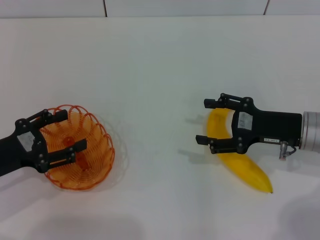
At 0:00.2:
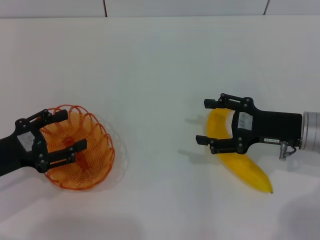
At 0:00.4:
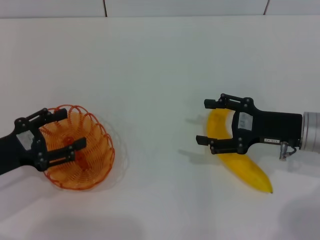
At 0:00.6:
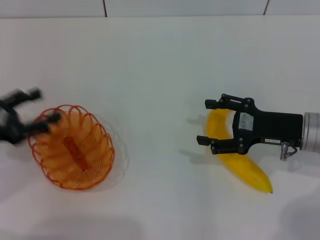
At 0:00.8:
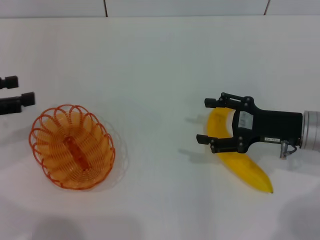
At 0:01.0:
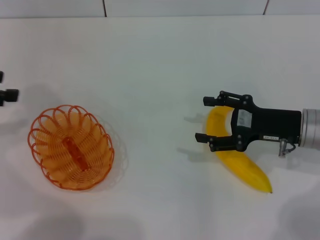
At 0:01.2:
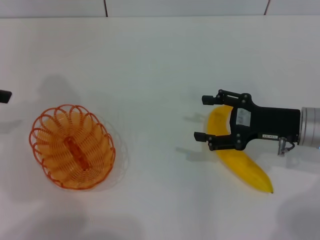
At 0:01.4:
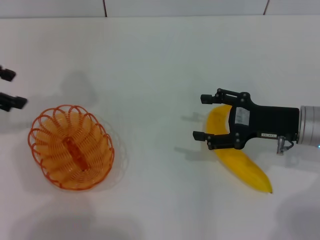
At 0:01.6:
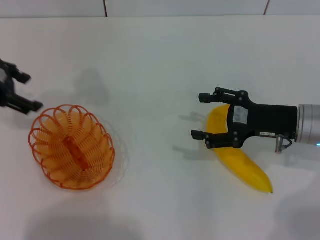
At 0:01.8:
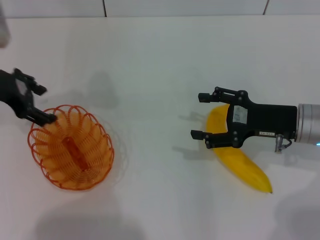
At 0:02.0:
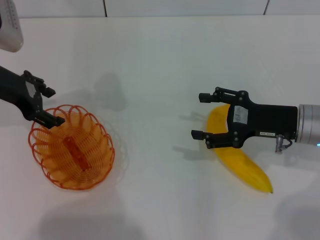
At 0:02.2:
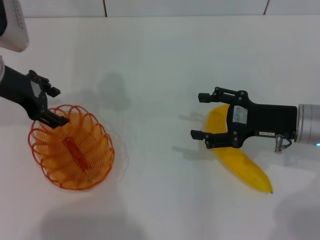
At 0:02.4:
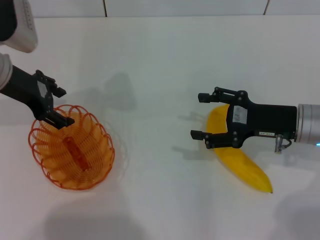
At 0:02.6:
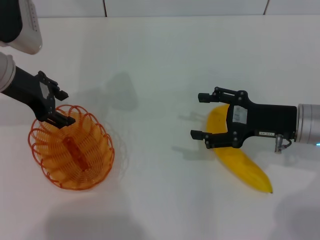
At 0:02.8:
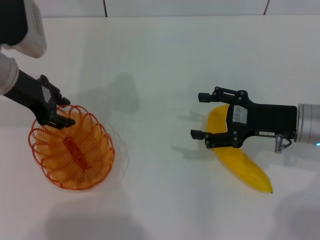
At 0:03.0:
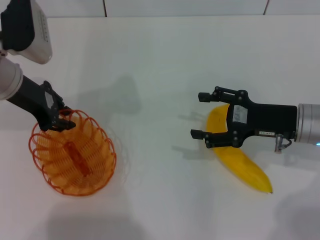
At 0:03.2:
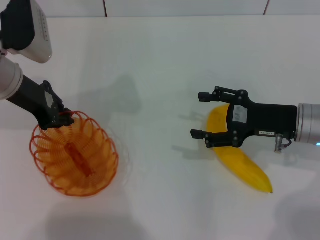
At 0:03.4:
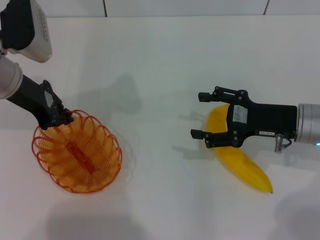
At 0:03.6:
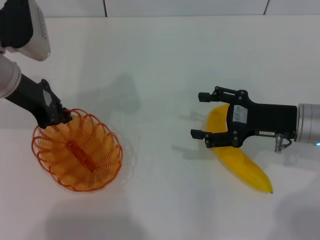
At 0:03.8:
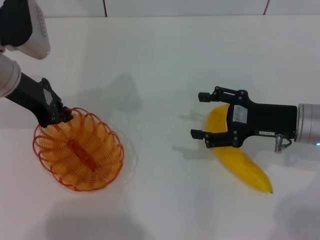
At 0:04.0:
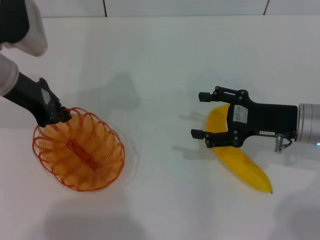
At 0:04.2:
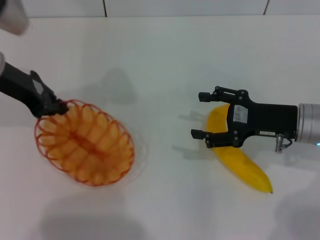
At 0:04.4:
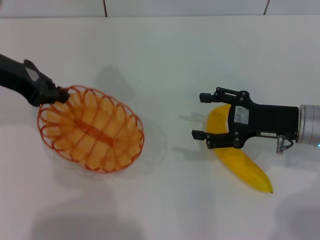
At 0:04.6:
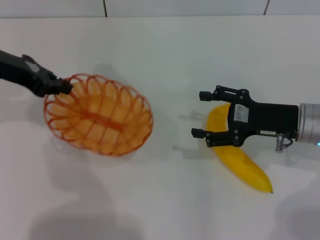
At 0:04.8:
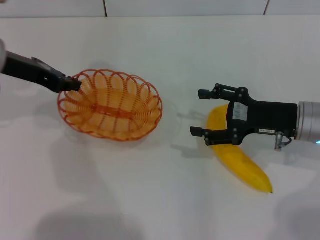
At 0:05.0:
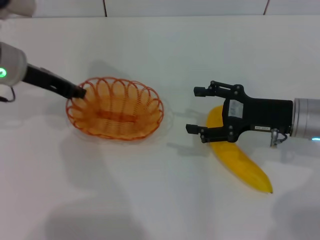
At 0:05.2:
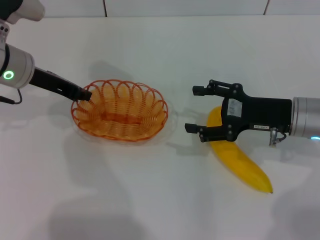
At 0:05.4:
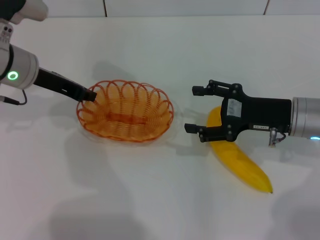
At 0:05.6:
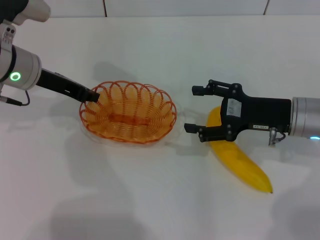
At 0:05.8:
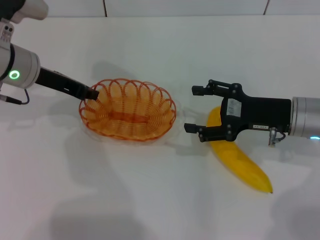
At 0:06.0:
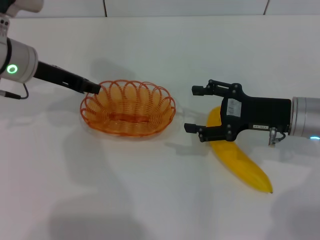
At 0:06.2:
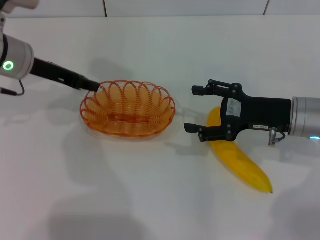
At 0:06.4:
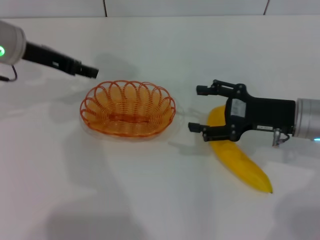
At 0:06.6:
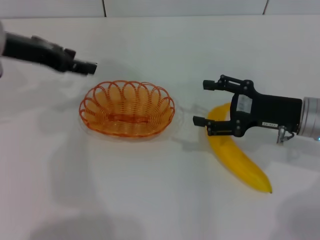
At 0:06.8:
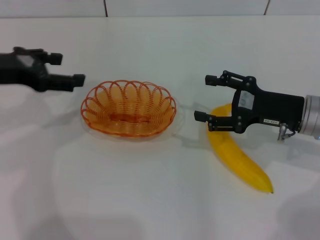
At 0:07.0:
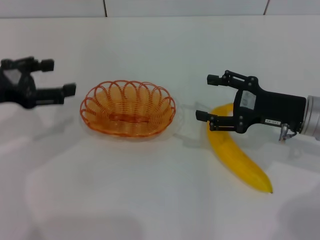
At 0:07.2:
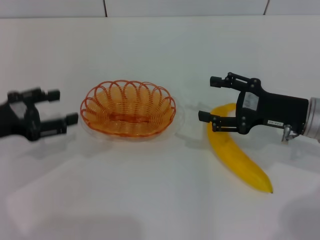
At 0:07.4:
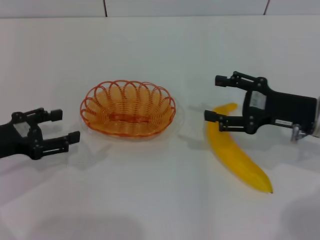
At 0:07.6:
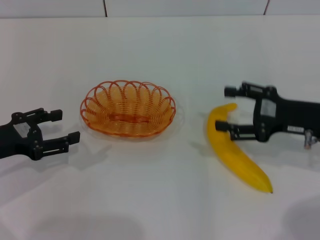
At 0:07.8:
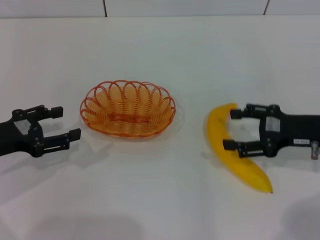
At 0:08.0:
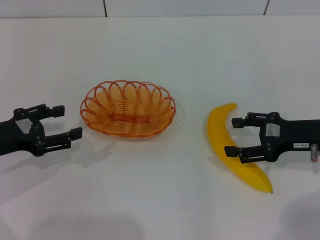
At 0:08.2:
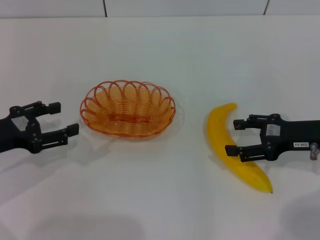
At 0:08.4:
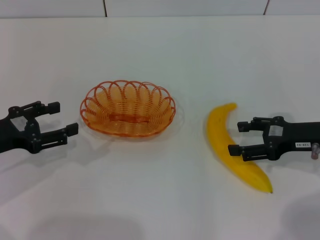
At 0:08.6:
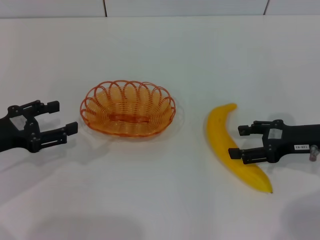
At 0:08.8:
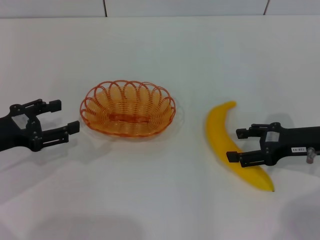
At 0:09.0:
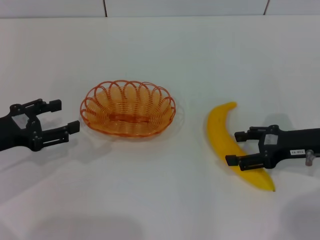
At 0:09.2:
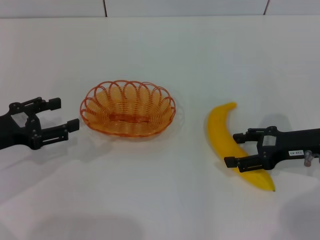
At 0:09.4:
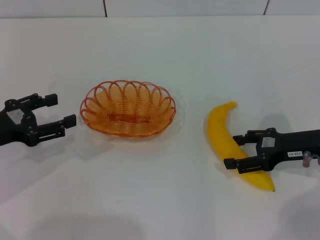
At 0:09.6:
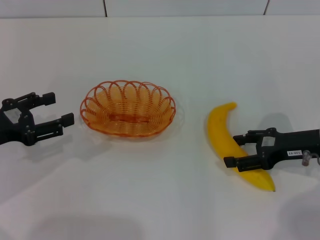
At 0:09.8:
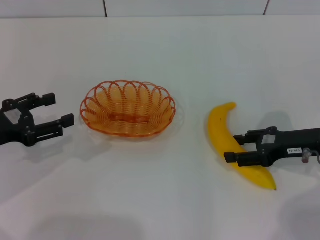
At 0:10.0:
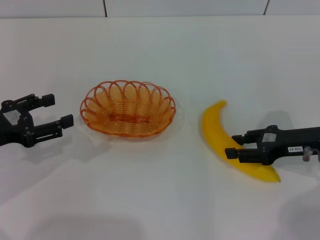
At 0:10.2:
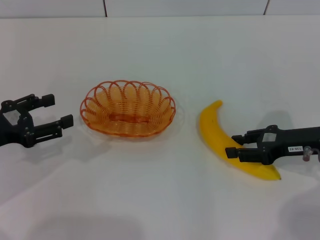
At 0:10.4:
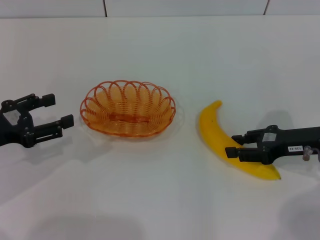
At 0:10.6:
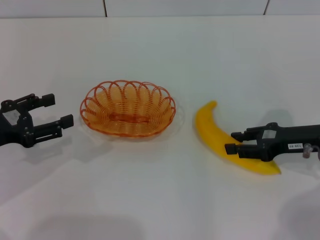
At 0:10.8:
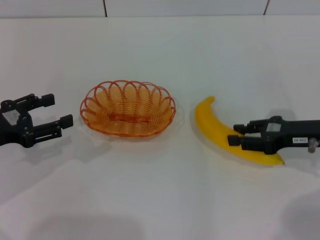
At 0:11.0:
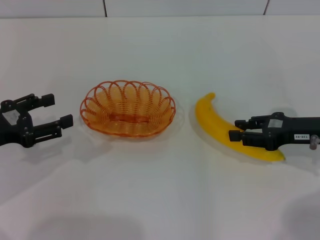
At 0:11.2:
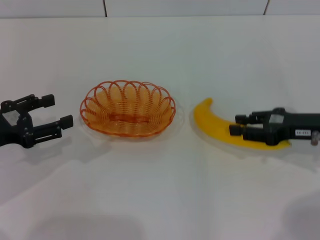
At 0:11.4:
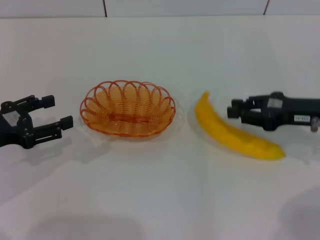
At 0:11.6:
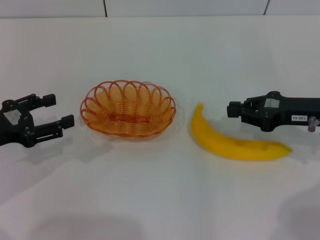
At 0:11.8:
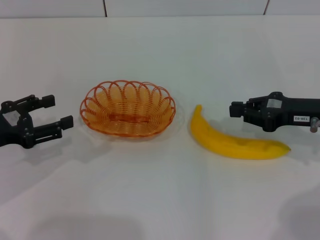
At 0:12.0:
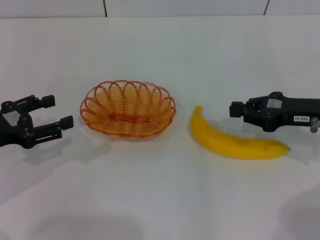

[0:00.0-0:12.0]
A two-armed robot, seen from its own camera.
Step, 0:00.0 to 0:04.4: Pick up the basket with the left gripper.
Step, 0:04.6 to 0:06.4: Place the basket in the center of view with the left gripper.
0:00.0 to 0:01.6: The left gripper goes approximately 20 cm forward and upward.
0:01.6 to 0:03.0: The left gripper heads to the right, covering about 5 cm, and closes.
0:03.0 to 0:04.4: The left gripper shifts by approximately 5 cm, and closes its fingers.
0:04.4 to 0:06.0: The left gripper moves about 5 cm.
0:06.0 to 0:07.6: The left gripper heads backward, to the left and downward, covering roughly 15 cm, and opens.
0:09.0 to 0:10.4: The right gripper closes up.
0:10.4 to 0:12.0: The right gripper closes its fingers.

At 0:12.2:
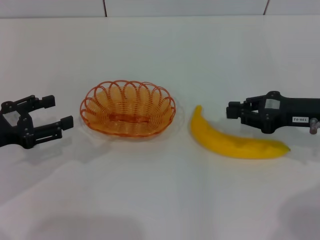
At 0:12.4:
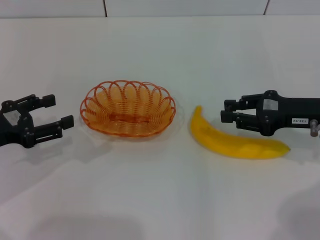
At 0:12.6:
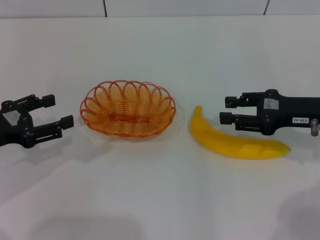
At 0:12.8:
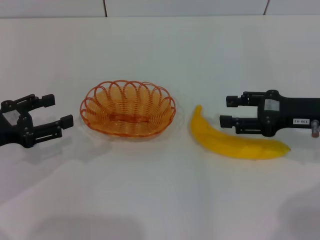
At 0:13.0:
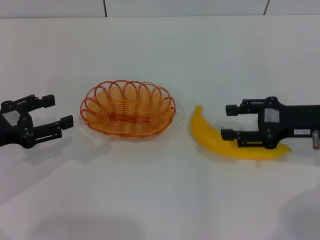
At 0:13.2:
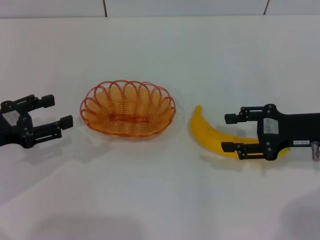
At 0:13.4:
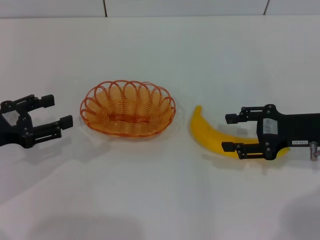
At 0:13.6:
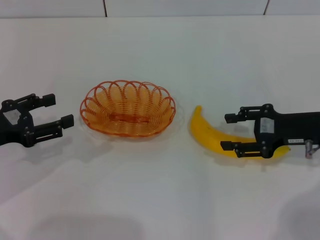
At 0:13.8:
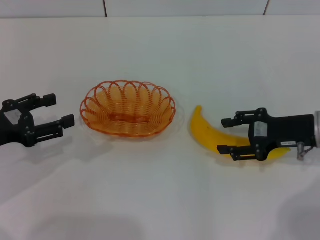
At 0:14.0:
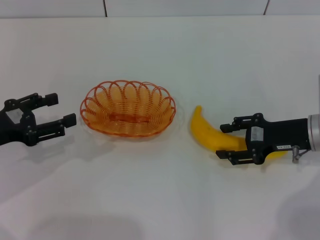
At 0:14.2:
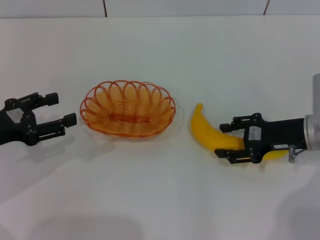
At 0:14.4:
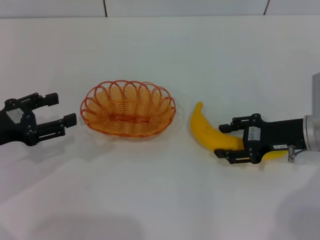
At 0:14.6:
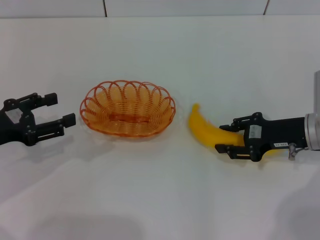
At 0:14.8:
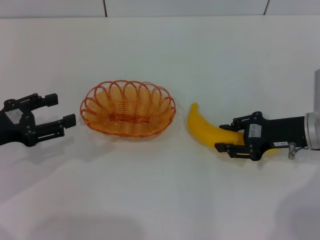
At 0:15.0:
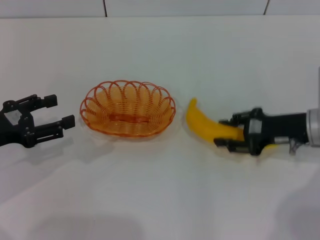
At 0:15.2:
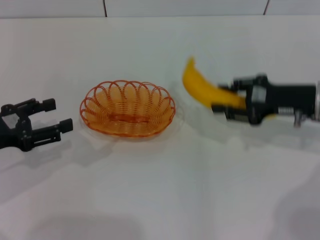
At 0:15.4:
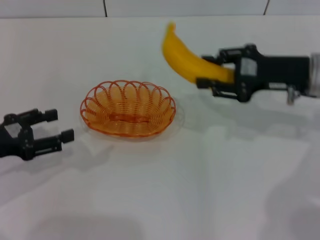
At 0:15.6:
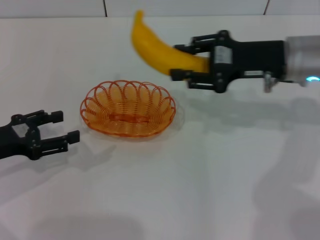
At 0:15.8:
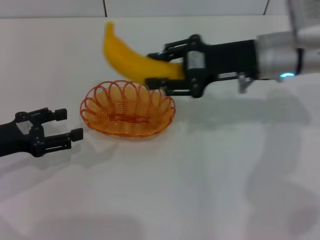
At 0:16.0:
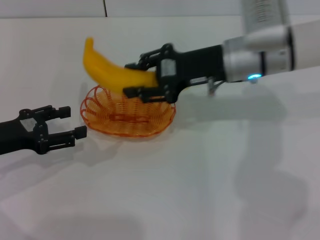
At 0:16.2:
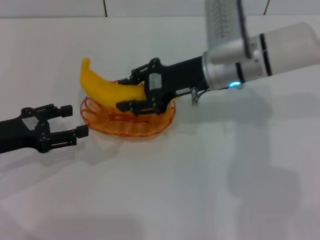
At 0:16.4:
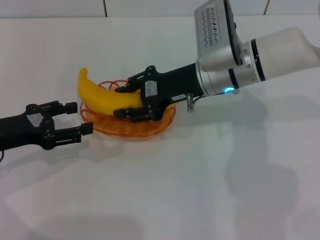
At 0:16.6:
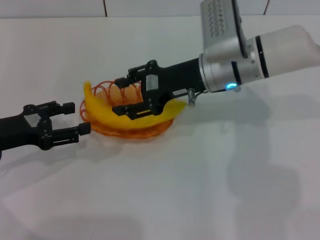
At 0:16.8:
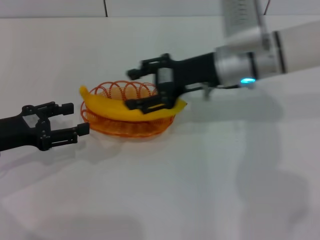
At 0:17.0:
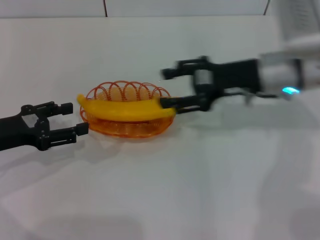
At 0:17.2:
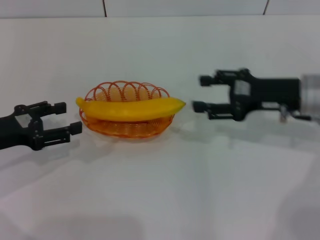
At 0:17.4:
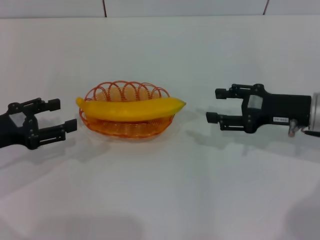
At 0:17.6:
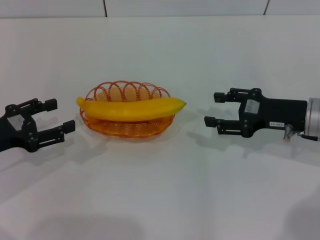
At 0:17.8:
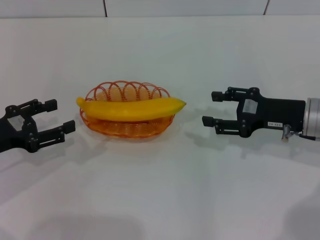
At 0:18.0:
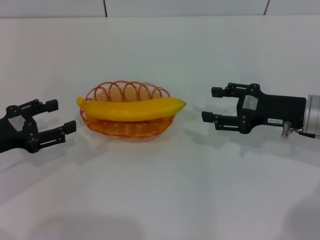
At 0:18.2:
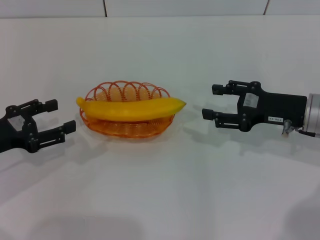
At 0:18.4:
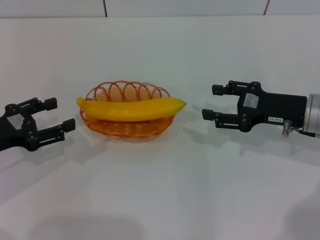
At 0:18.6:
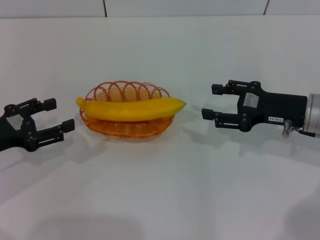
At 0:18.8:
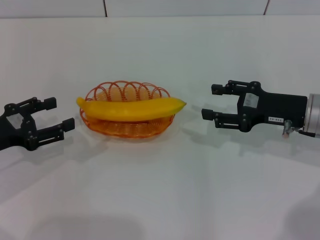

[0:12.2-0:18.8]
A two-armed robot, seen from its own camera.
Step, 0:12.2 to 0:15.0: Pick up the banana with the right gripper.
Step, 0:15.4 to 0:17.0: Place the banana into the basket with the right gripper.
0:12.2 to 0:13.8: The right gripper opens up.
0:13.8 to 0:15.4: The right gripper is displaced upward by about 5 cm.
0:15.4 to 0:17.2: The right gripper goes to the left and returns, approximately 15 cm each way.
0:17.2 to 0:18.8: There are only small adjustments of the grippers.

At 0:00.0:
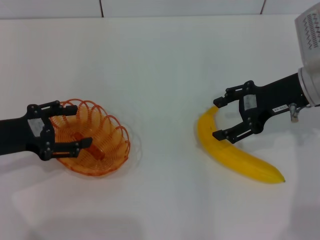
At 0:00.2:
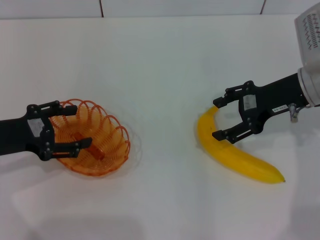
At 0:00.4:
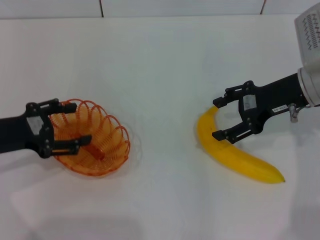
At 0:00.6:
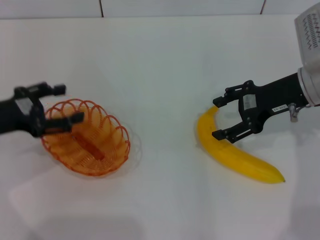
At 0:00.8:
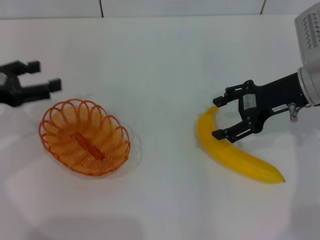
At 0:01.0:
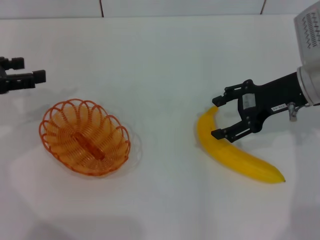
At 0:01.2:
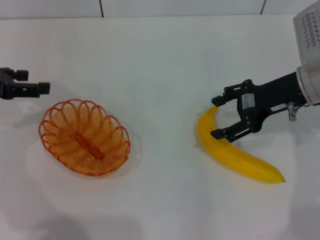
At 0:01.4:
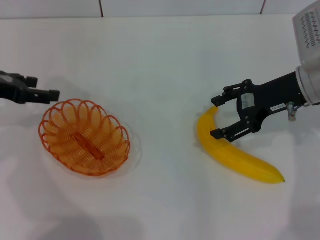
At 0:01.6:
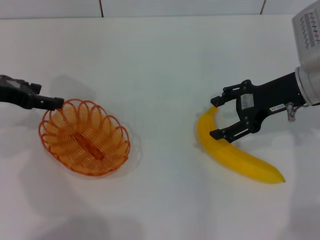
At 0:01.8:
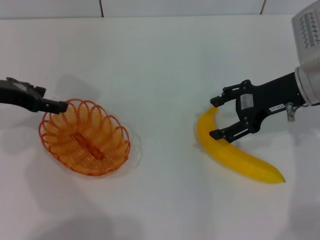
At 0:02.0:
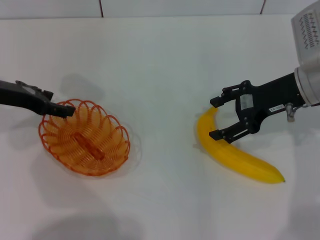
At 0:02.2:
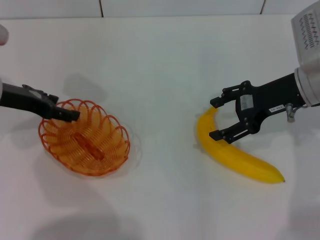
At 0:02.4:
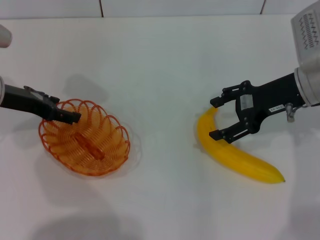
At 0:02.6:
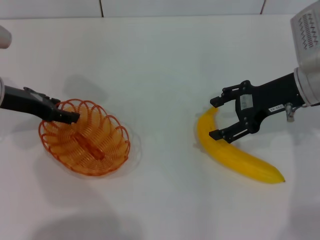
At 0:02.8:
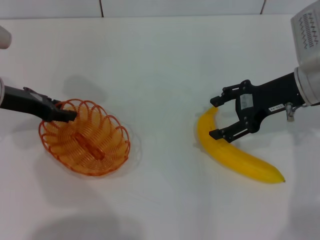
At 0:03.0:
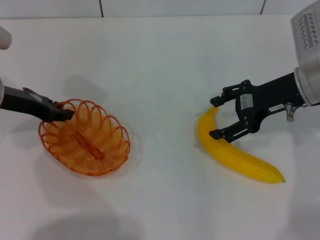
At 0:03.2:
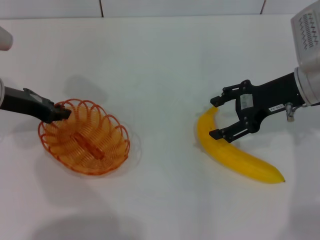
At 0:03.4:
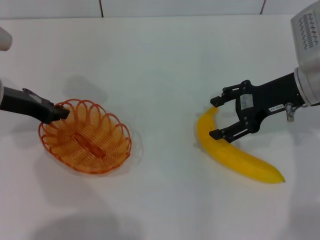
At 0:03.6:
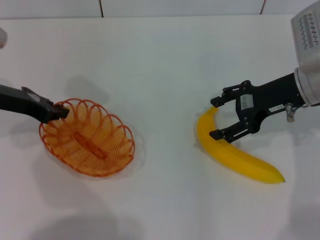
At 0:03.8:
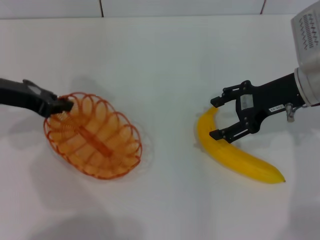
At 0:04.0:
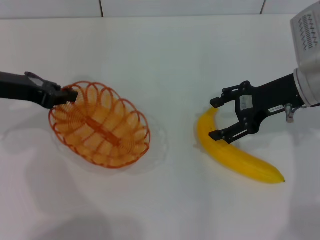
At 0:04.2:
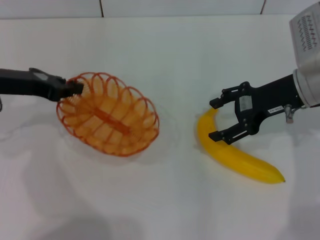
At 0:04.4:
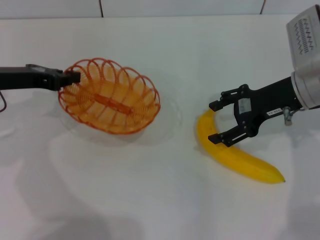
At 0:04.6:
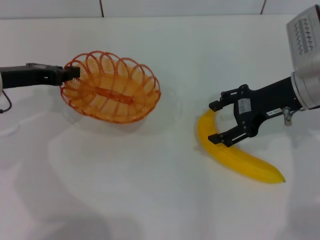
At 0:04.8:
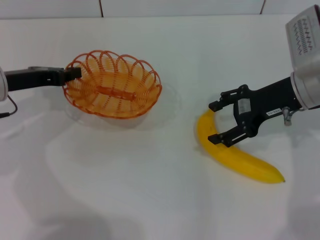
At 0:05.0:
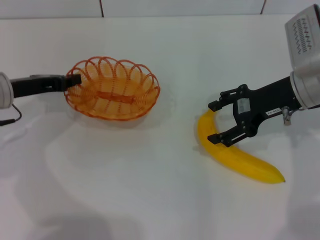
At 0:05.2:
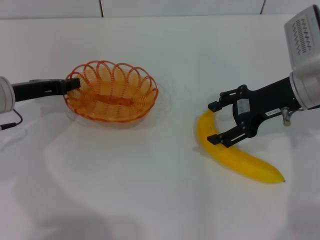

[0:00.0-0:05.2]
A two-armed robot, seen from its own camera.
Step, 0:00.0 to 0:04.0: Pick up the basket with the left gripper.
0:00.0 to 0:01.8: The left gripper goes roughly 10 cm forward.
0:01.8 to 0:03.4: The left gripper closes its fingers.
